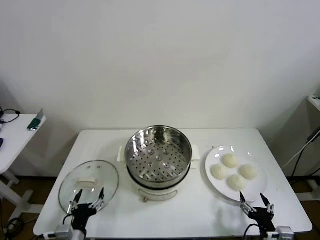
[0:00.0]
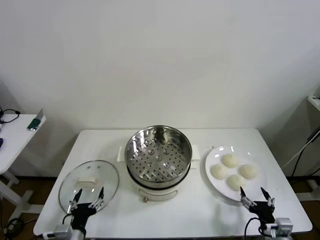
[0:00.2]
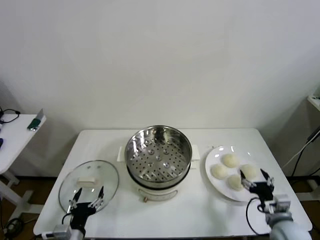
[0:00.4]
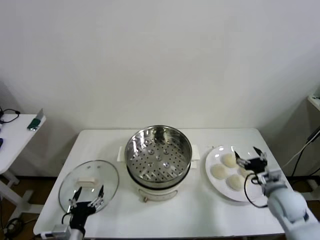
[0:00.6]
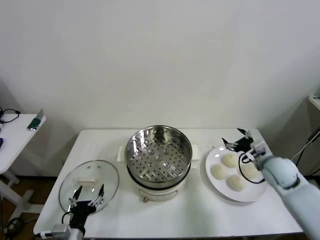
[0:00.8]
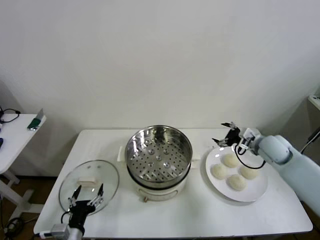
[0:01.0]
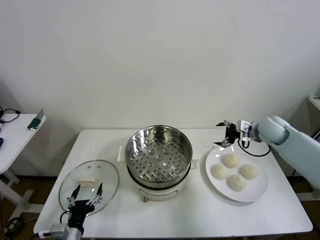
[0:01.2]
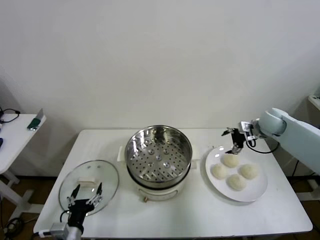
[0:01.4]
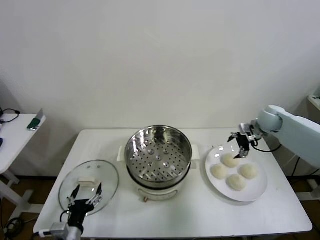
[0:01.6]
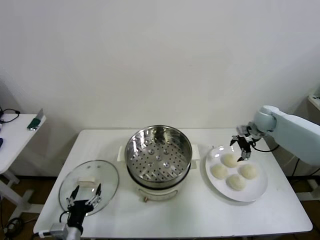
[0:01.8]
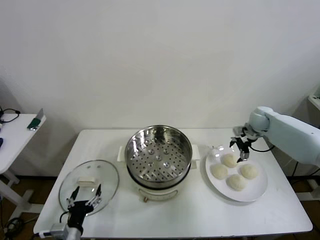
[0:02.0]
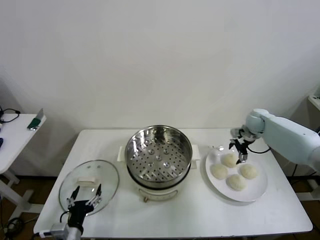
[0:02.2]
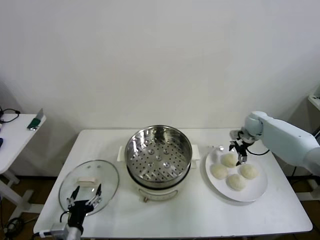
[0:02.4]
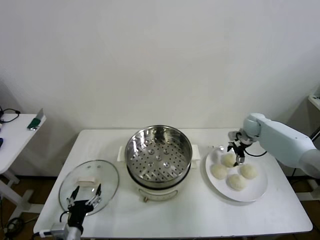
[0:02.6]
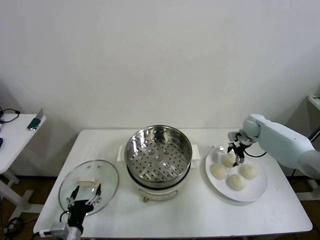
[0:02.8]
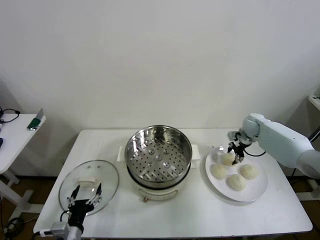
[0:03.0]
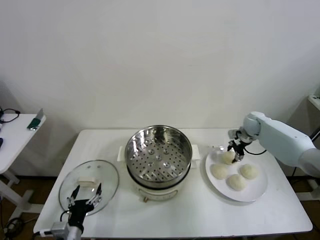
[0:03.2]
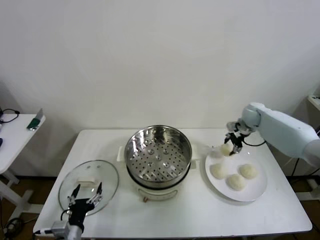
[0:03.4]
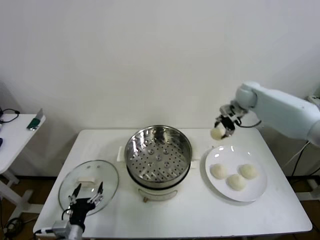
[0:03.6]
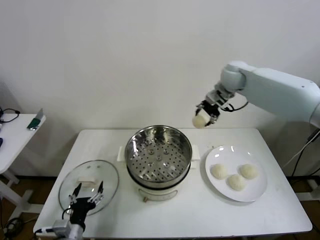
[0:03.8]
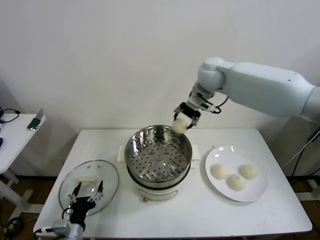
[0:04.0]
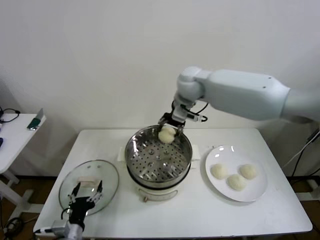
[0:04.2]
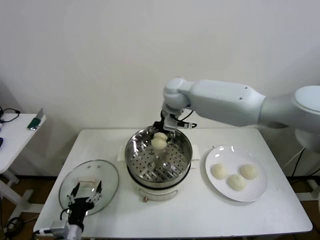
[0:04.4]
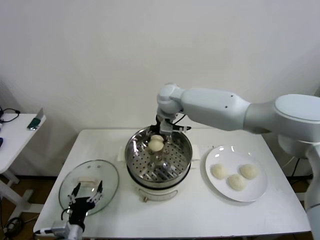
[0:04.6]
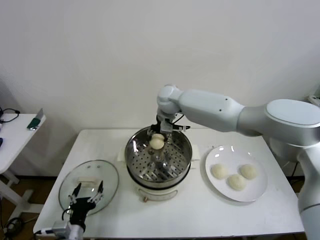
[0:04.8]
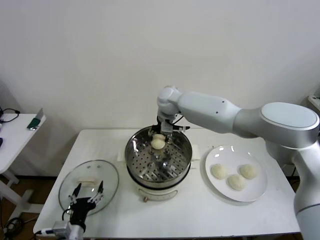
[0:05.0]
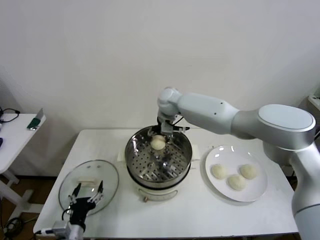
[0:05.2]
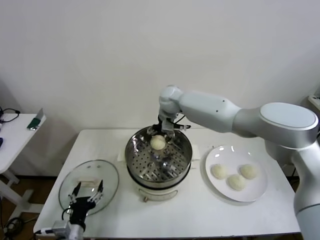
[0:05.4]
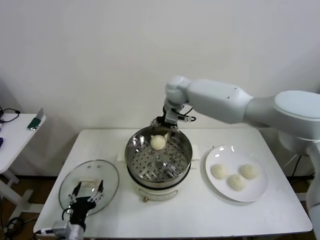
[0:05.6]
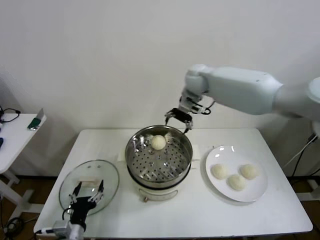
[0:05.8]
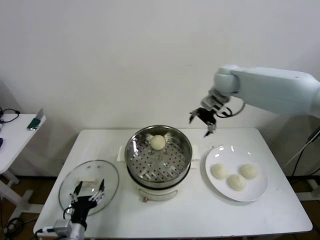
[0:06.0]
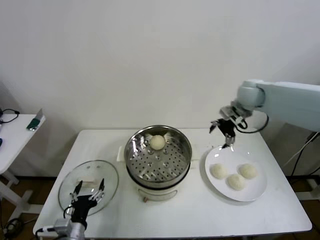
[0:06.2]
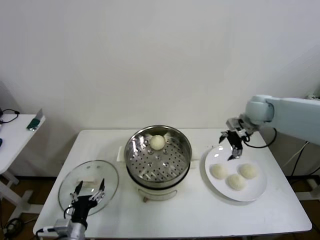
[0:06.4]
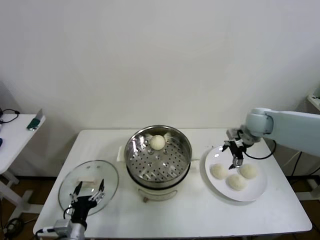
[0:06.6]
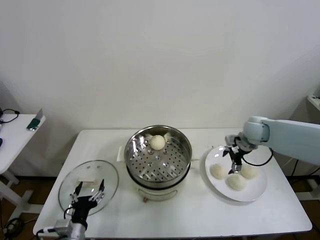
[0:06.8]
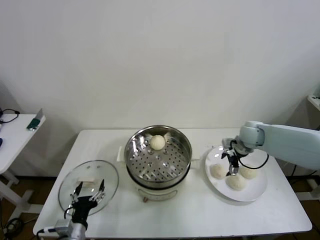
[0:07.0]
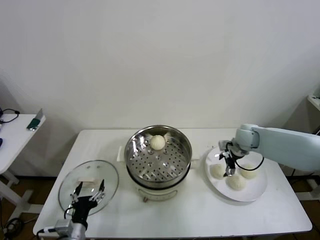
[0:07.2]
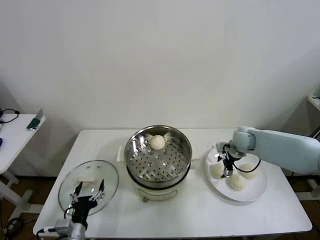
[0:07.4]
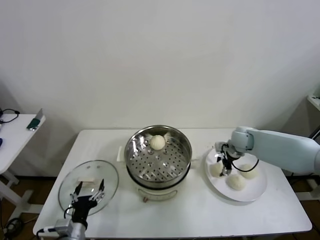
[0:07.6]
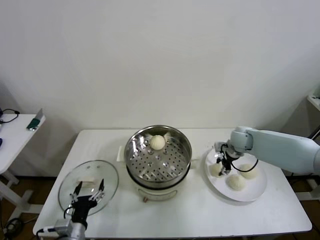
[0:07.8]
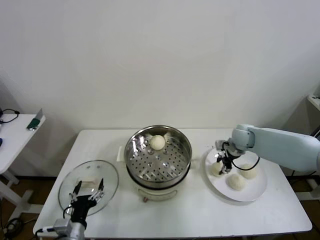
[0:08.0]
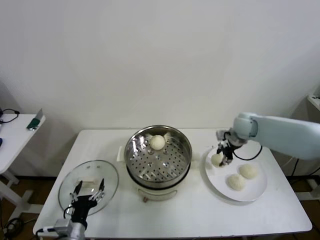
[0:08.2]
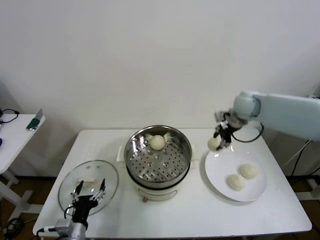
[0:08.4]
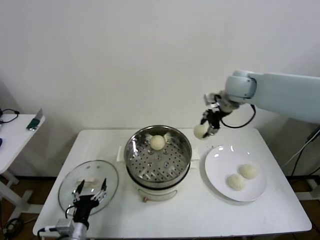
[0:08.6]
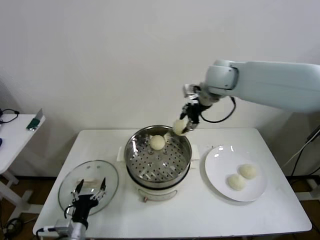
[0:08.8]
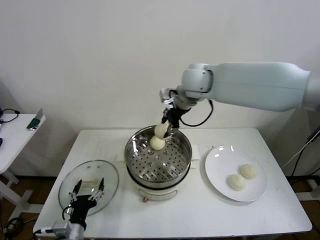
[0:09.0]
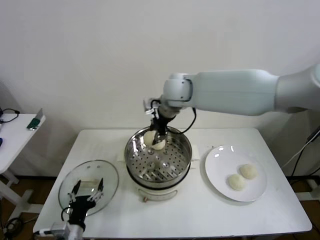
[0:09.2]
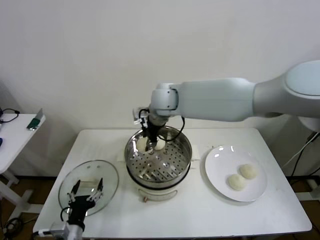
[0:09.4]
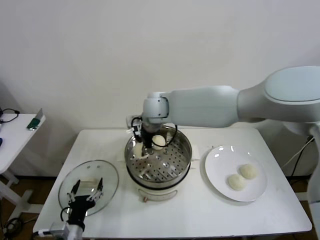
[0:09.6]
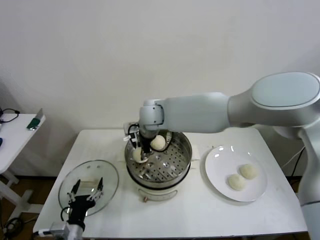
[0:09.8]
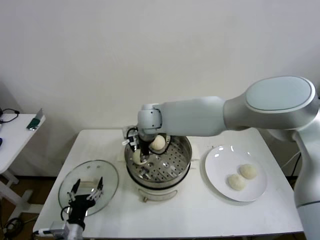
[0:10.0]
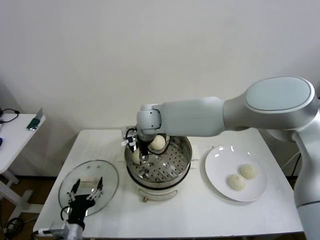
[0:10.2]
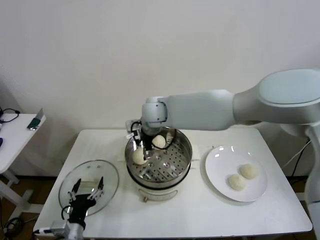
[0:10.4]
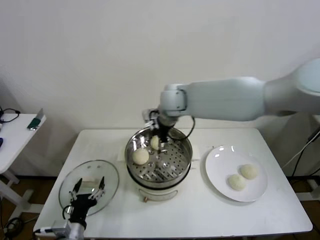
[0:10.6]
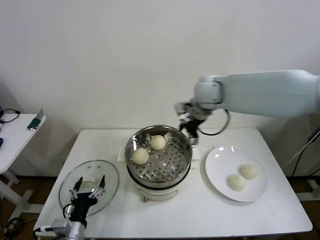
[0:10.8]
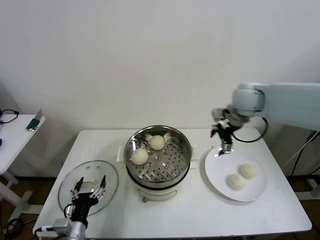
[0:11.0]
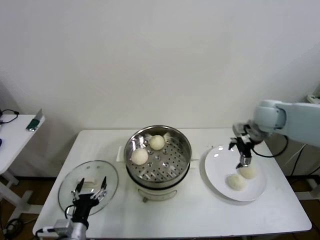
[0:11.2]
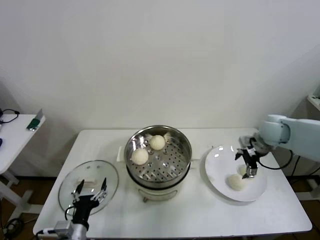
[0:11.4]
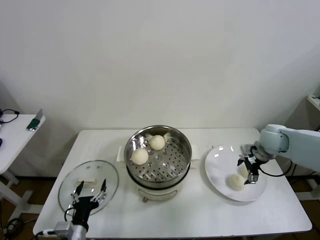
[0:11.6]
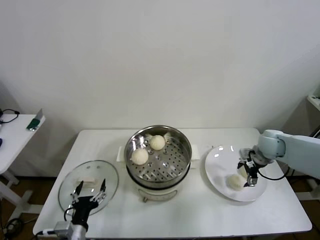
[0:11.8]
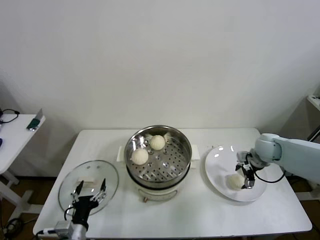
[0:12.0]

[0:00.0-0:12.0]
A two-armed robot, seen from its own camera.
Step, 0.0 to 2.8 s: Grasp the baozi in the plate with right gripper.
Step, 3.0 to 5.4 s: Place the baozi on the steamer with right gripper.
Step, 5.6 to 7.6 s: Grasp the baozi in the plate with right gripper.
Step, 7.8 to 10.2 s: Place the baozi on the steamer with right gripper.
1.6 to 3.0 s: The right gripper moves downward, approximately 5 cm, and closes its fingers.
3.0 to 4.4 s: The right gripper travels to the left and upward by about 40 cm.
4.4 to 6.0 s: The right gripper shifts approximately 20 cm to the right, and opens.
6.0 to 7.6 s: The right gripper heads downward, covering some 20 cm, and closes its fingers.
7.6 to 9.0 s: The right gripper heads upward and to the left, covering roughly 35 cm, and closes.
9.0 to 10.4 s: The right gripper shifts some 10 cm to the left and downward, and opens.
10.4 to 12.0 s: The right gripper heads to the right and downward, covering some 40 cm.

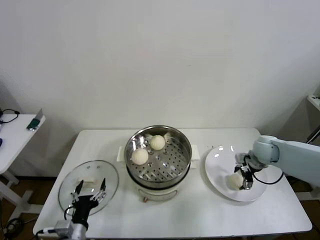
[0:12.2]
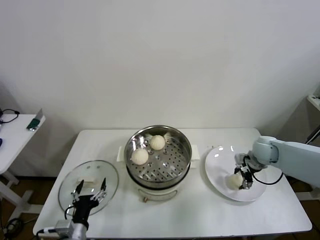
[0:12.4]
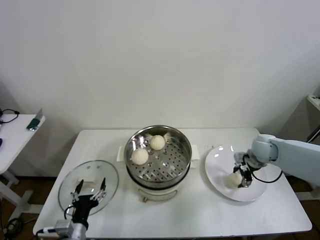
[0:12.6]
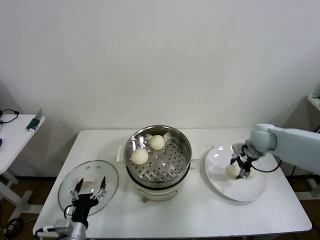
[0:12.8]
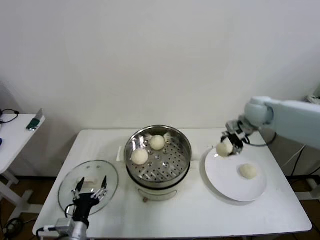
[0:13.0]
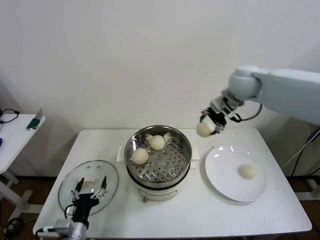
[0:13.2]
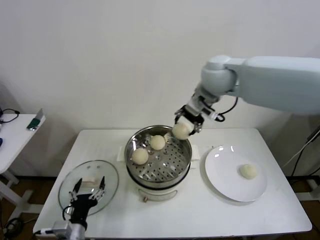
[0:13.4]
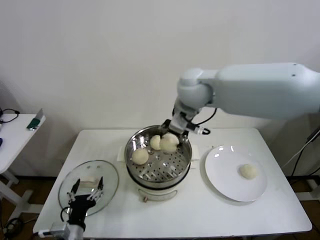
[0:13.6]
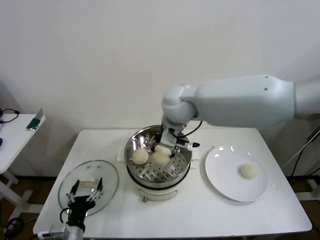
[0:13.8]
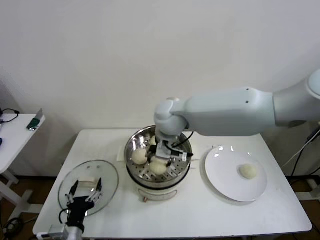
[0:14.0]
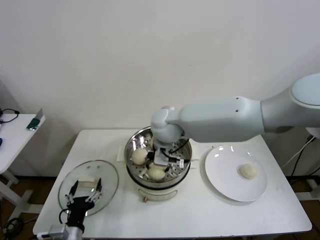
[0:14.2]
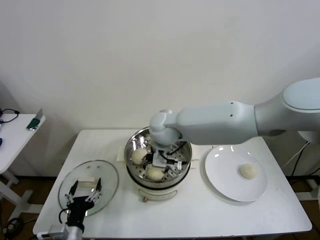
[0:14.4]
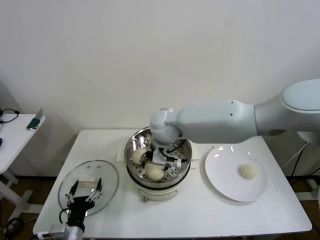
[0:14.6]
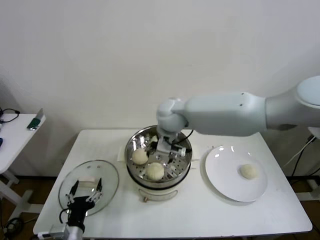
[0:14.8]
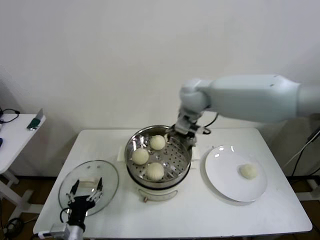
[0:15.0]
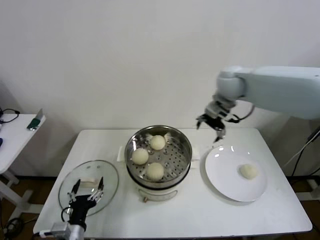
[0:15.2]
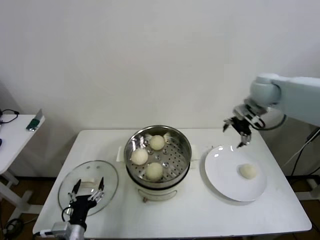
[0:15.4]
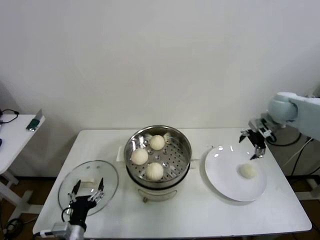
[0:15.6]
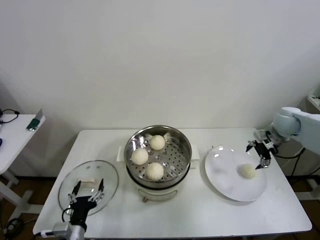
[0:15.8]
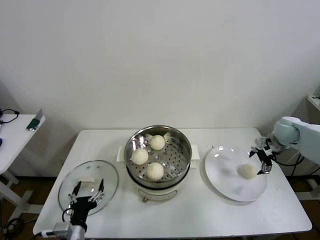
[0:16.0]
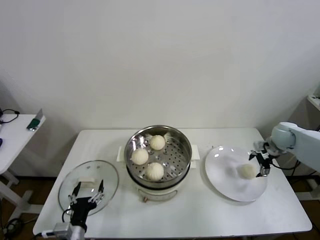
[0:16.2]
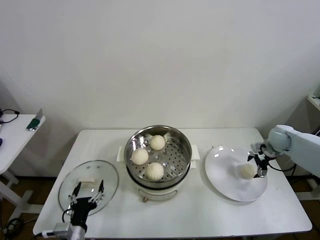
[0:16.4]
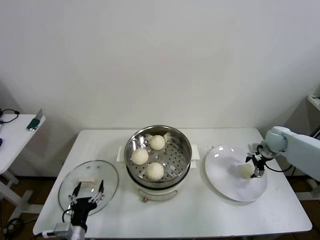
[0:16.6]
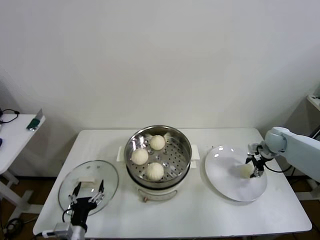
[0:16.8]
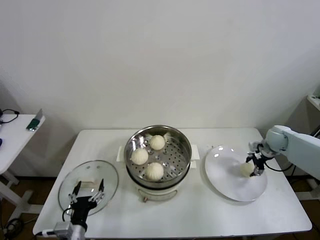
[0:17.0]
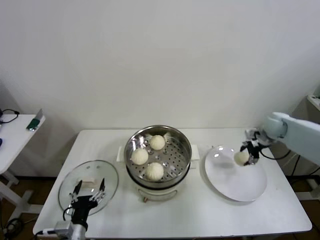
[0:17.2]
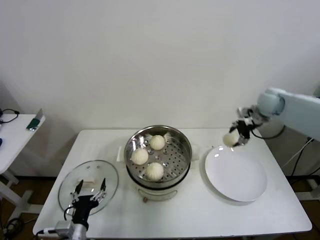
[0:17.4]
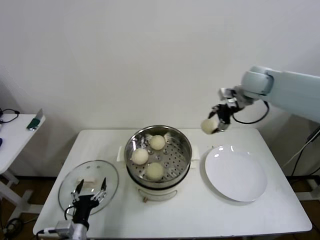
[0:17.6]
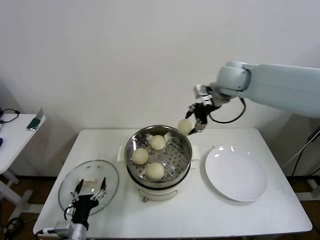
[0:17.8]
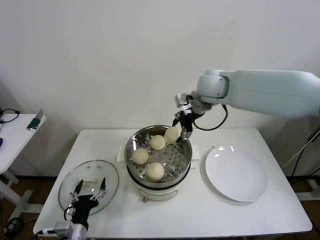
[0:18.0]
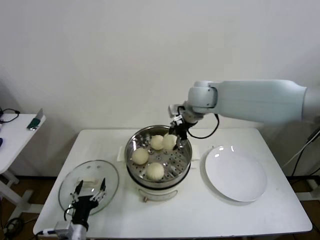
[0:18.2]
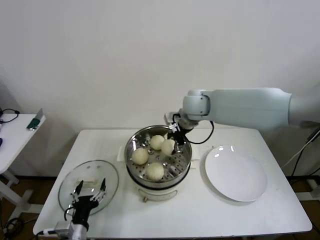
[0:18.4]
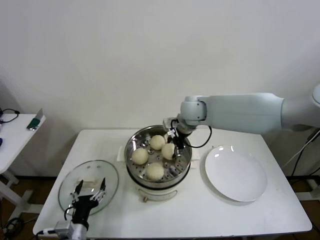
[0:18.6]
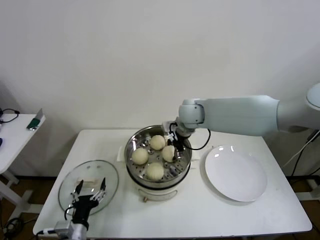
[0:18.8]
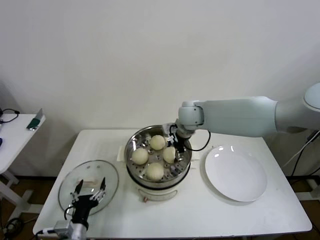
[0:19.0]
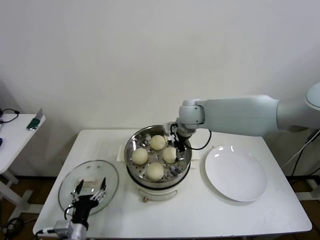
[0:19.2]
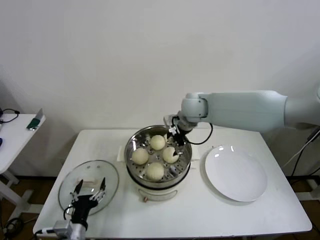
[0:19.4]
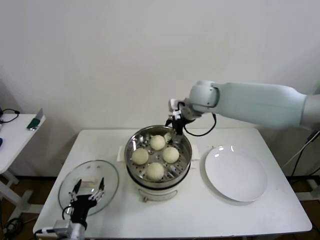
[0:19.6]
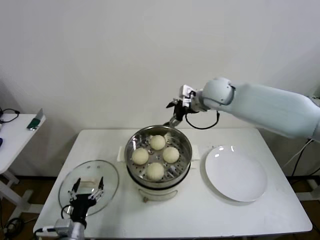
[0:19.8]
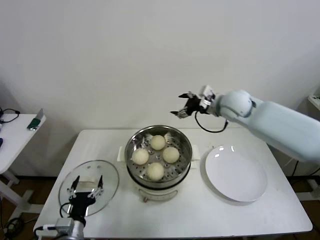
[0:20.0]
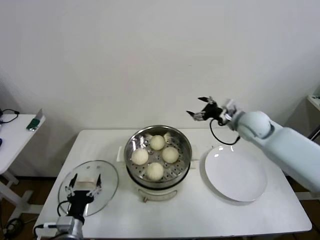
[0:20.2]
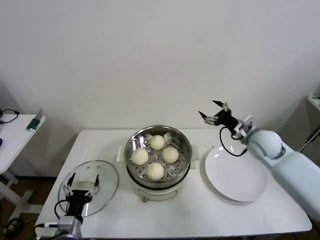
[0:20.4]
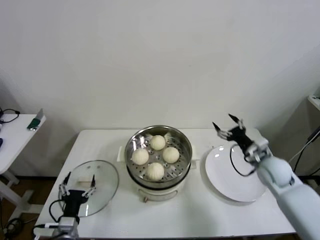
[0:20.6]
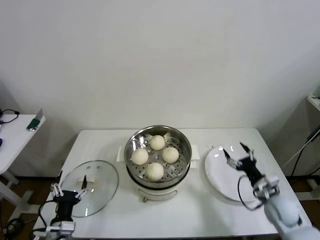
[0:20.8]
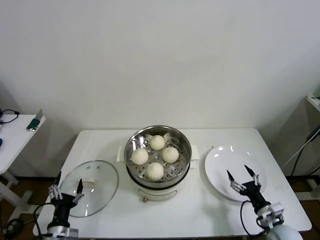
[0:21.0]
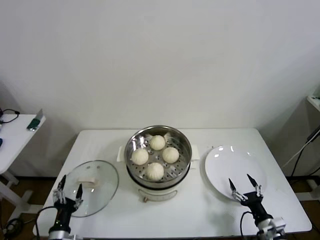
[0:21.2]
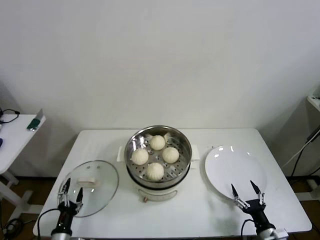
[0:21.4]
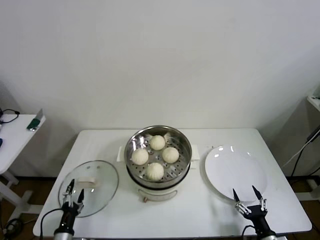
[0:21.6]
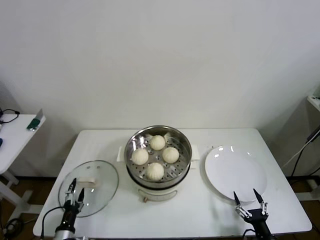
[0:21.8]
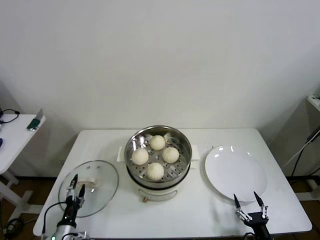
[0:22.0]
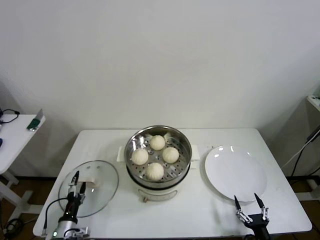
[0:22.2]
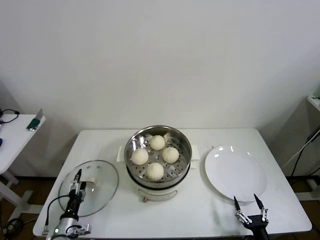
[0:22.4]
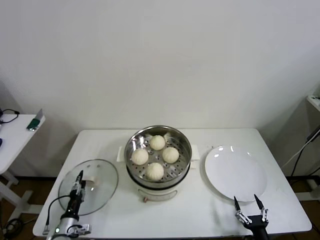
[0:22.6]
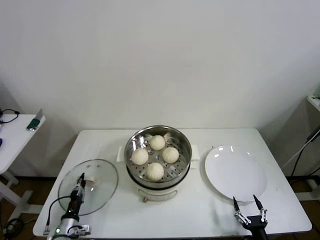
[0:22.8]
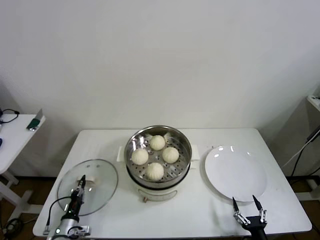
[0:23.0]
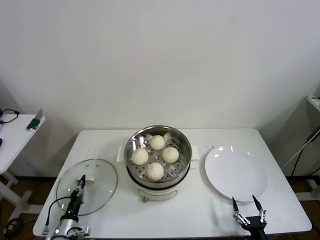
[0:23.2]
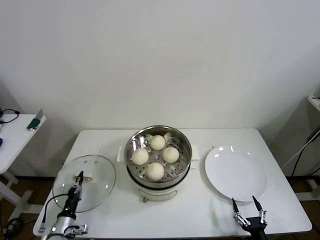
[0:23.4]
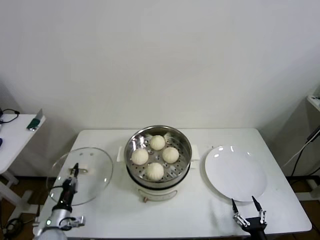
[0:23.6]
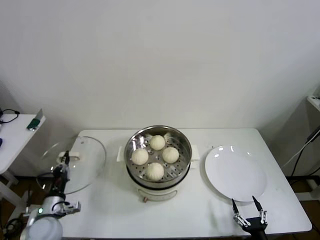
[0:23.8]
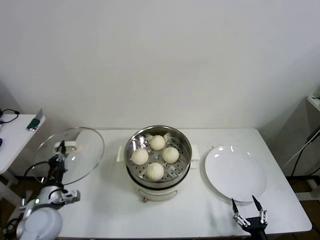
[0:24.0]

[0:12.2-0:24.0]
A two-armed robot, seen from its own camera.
Step, 12.6 to 14.6 s: Place the baozi on the steamer with right gripper.
Step, 14.8 to 16.8 s: Grasp the baozi in the plate with right gripper.
Step, 17.0 to 19.2 s: Place the baozi on the steamer with right gripper.
Step, 19.4 to 22.8 s: Grasp the pot lid with left gripper.
12.2 to 13.6 s: The right gripper shifts approximately 40 cm to the left and upward, and closes.
13.6 to 15.2 s: The right gripper heads to the right and forward, covering some 20 cm, and opens up.
15.2 to 16.6 s: The right gripper is displaced downward and to the right by about 35 cm.
16.6 to 18.2 s: The right gripper travels to the left and upward by about 40 cm.
18.2 to 19.6 s: The right gripper opens up.
19.6 to 21.0 s: The left gripper goes roughly 5 cm to the left. Meanwhile the right gripper travels downward, backward and to the right by about 50 cm.
21.0 to 22.6 s: The right gripper travels backward and downward by some 15 cm, while the left gripper is displaced downward by approximately 10 cm, and closes.
22.6 to 24.0 s: The left gripper travels upward by about 20 cm, and closes its fingers.
